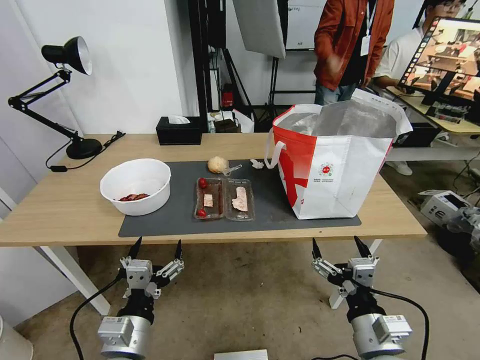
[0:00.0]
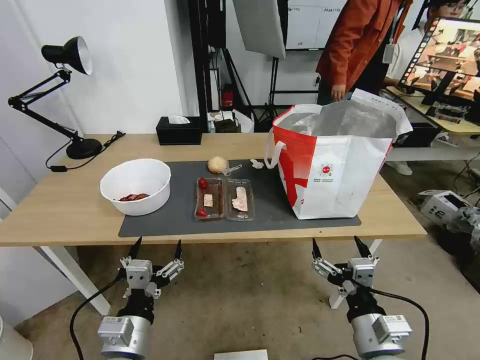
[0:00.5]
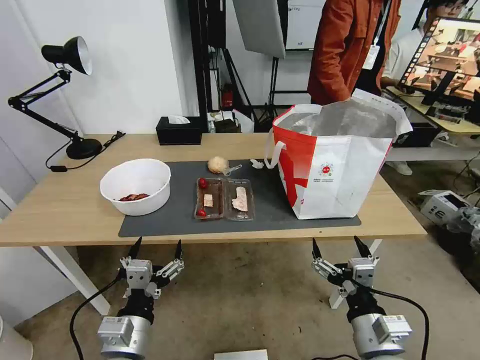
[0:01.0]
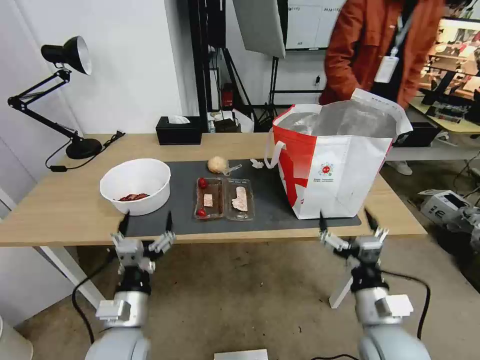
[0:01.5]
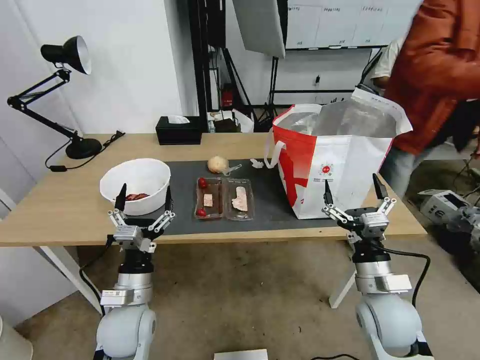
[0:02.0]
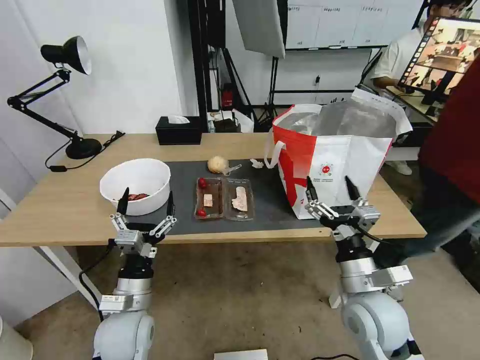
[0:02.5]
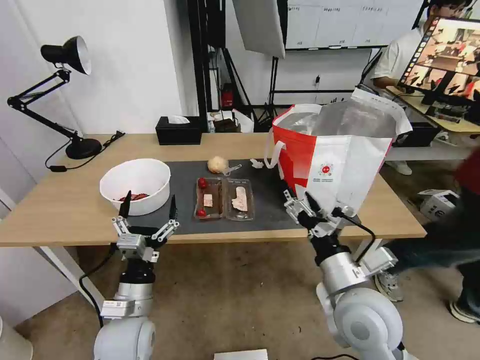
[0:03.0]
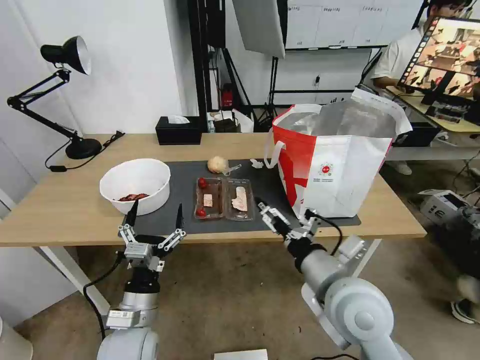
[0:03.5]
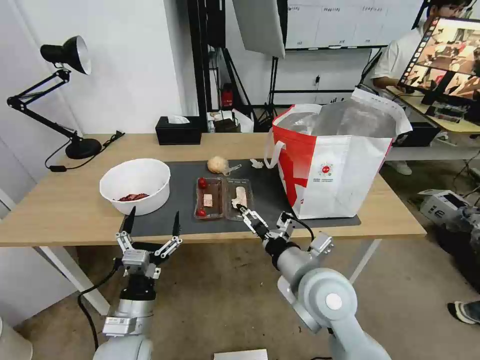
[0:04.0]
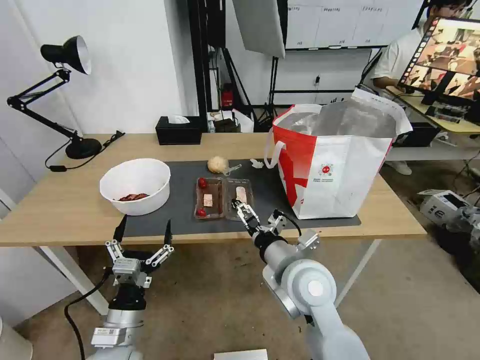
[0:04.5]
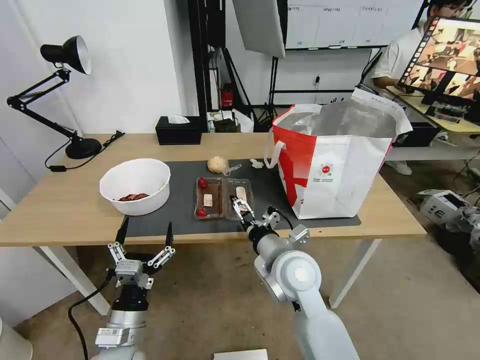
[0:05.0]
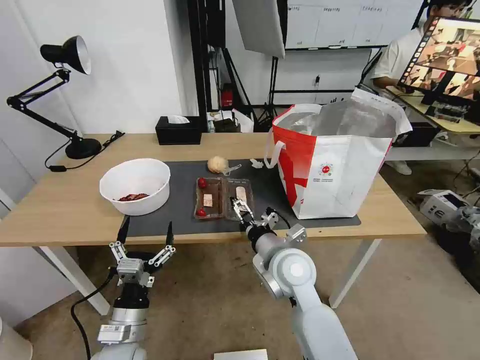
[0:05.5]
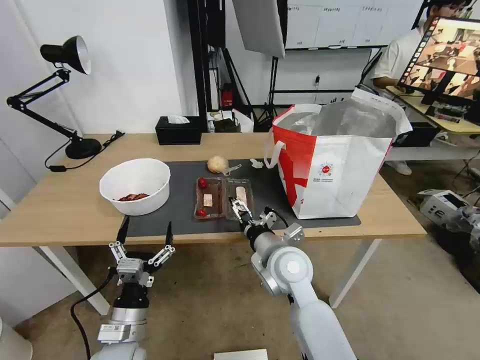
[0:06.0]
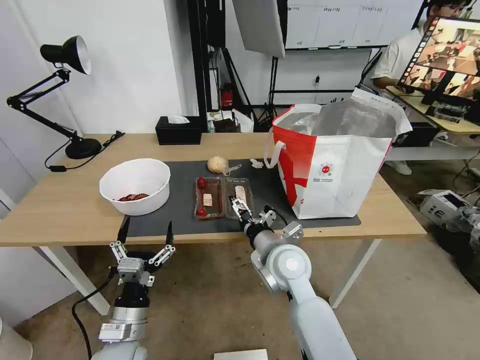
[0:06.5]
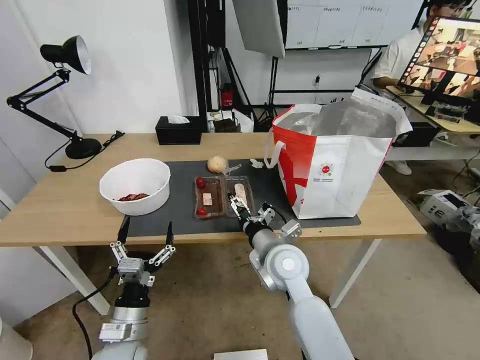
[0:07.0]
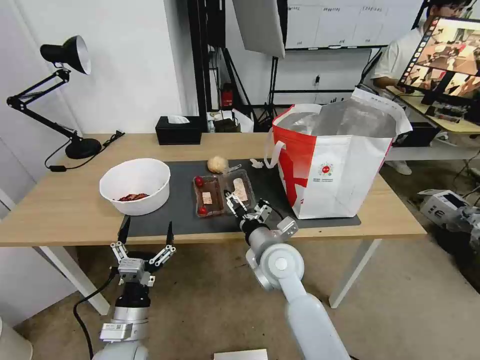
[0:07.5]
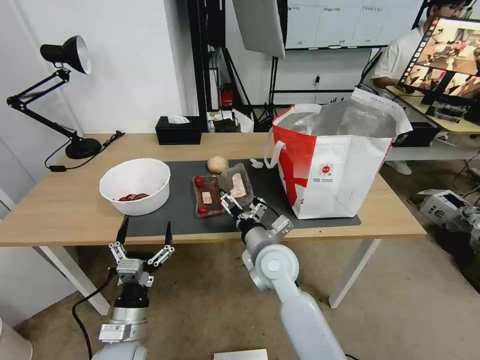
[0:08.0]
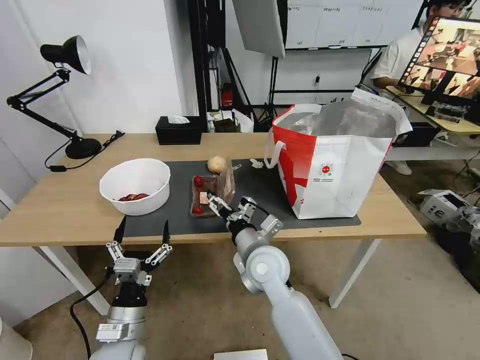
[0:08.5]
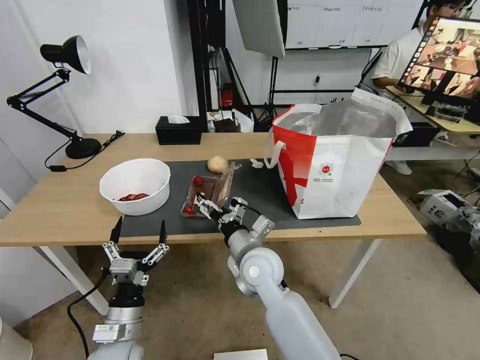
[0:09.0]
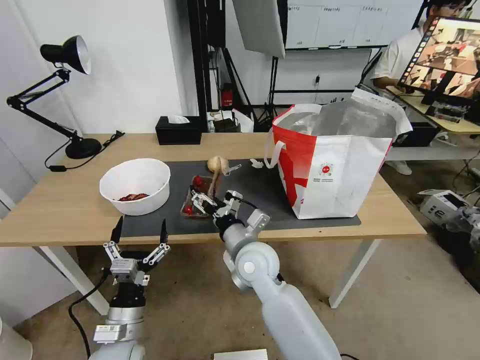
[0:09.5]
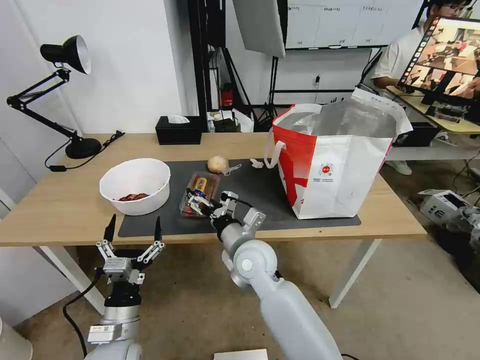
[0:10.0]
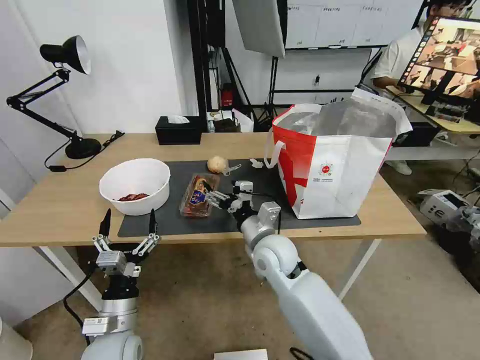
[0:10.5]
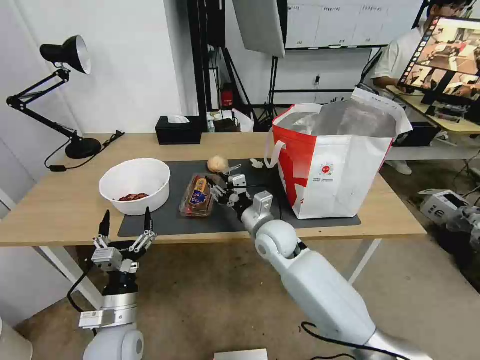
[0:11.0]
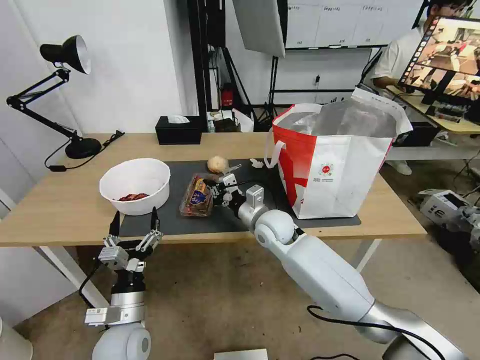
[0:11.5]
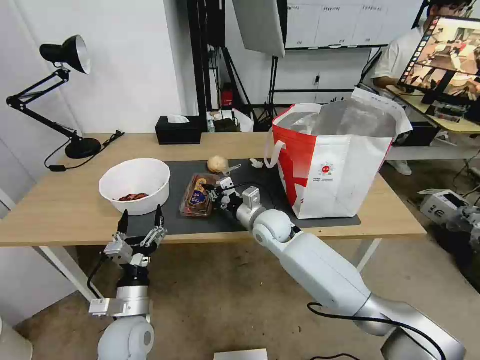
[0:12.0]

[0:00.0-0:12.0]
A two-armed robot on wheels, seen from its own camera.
Task of the whole recording: Pick up the trash from the table and place it into the takeout bag.
0:02.0 to 0:04.0: The right gripper heads to the left and upward, covering about 15 cm. The left gripper shifts by roughly 5 cm.
0:04.0 to 0:06.0: The right gripper heads forward, covering approximately 5 cm.
0:06.0 to 0:08.0: The grippers stay close to where they were, moving slightly.
0:08.0 to 0:10.0: The grippers make only small movements.
0:10.0 to 0:12.0: The right gripper heads forward and to the right, covering about 10 cm, and closes up.

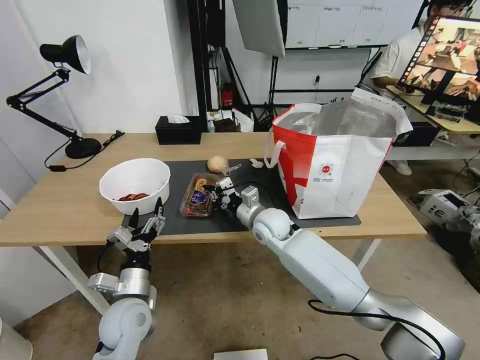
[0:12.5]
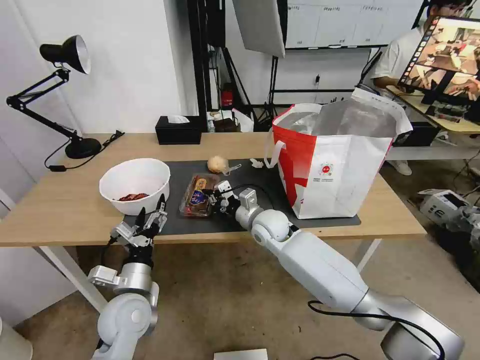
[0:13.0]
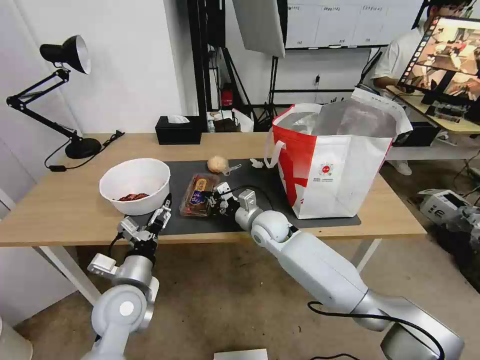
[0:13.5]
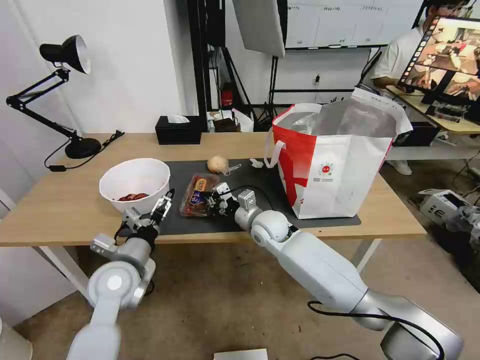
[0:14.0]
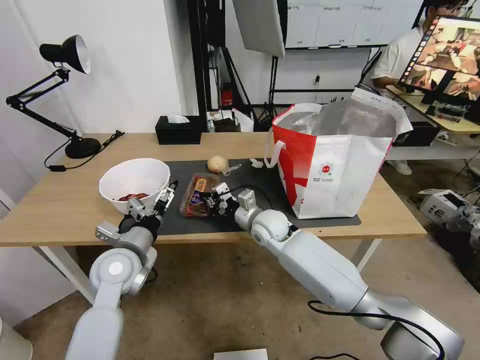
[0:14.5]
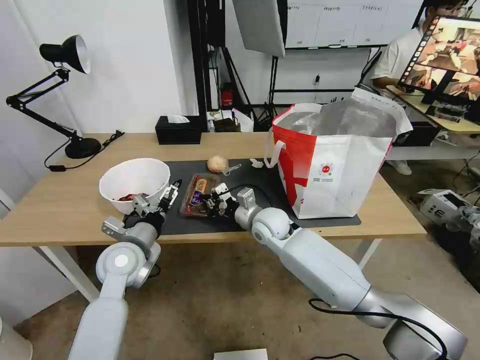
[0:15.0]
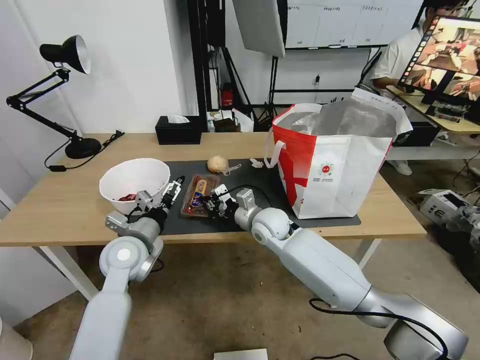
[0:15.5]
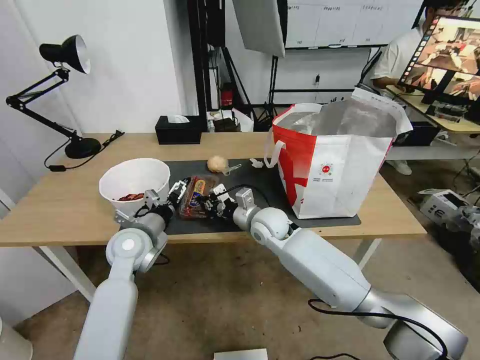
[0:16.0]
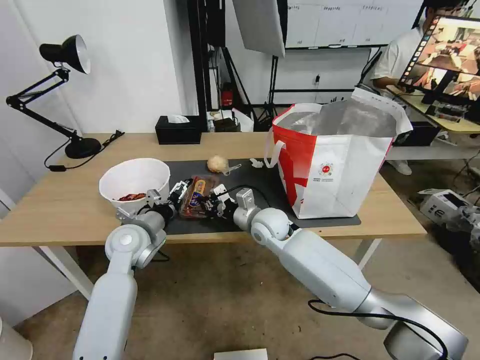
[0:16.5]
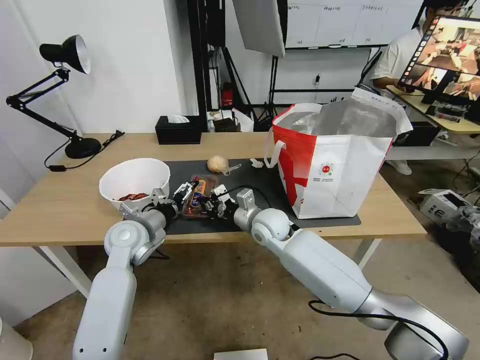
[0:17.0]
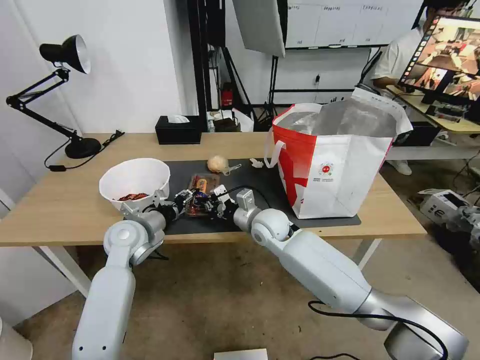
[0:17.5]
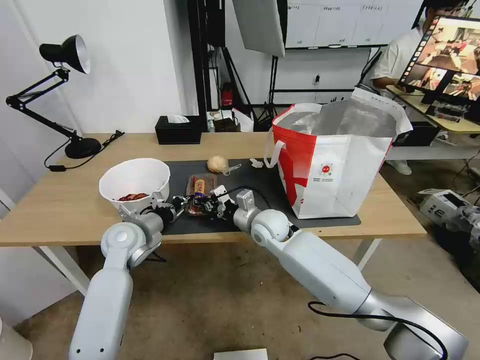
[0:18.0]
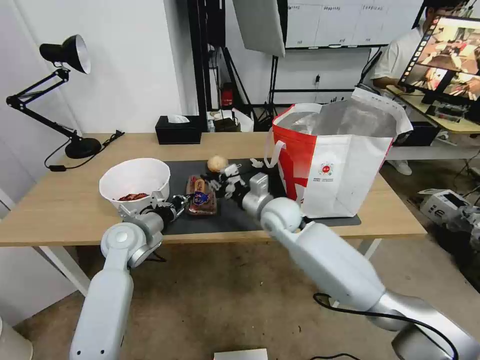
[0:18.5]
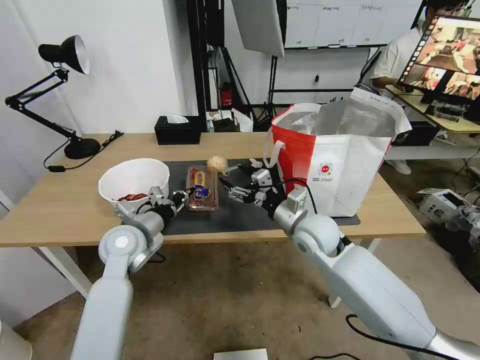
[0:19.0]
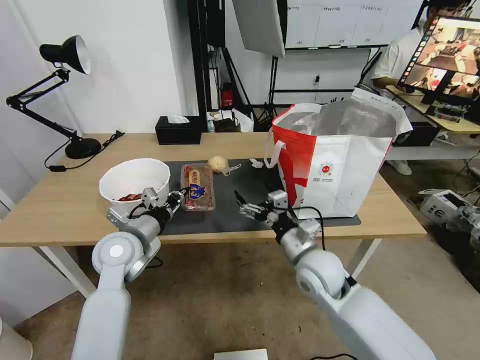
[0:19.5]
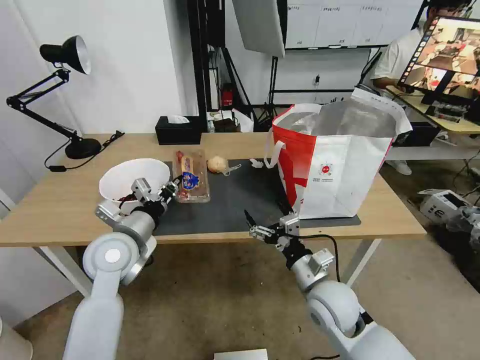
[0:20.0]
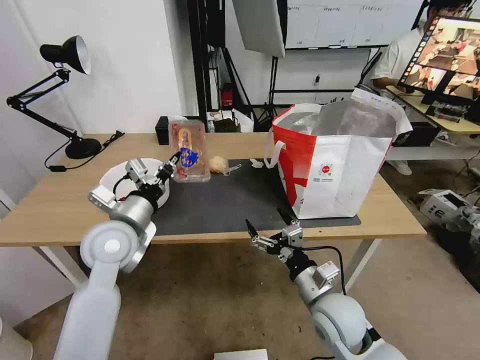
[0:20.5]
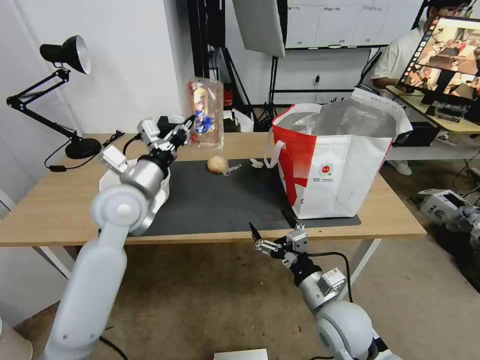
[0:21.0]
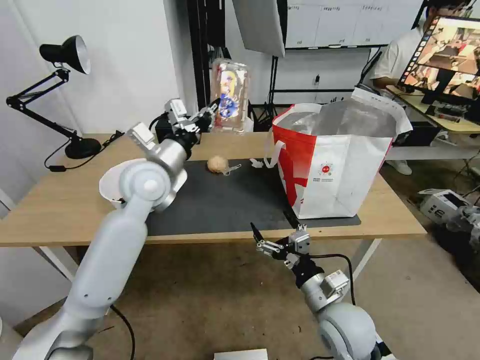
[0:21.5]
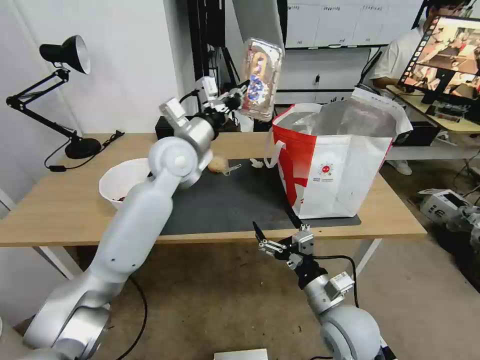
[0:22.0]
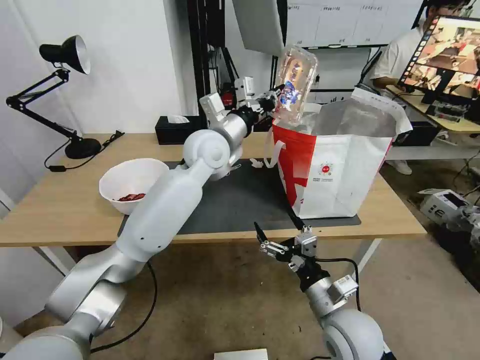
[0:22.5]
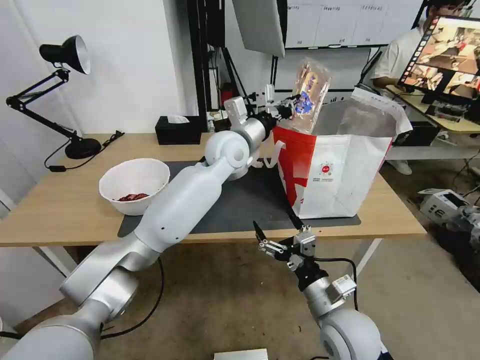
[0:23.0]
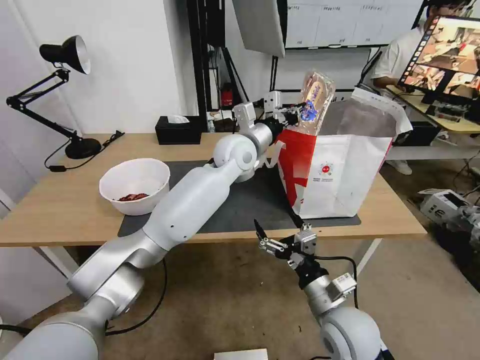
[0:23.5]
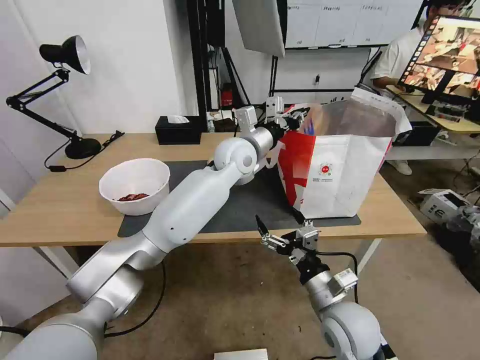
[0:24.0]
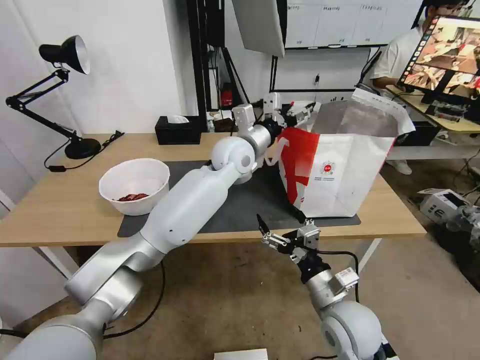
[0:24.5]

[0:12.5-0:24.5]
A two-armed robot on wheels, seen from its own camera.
Task of the whole recording: Pick up the trash from the table and place it into the takeout bag.
0:12.5 to 0:14.5: The left gripper is displaced upward and forward by some 10 cm.
0:14.5 to 0:16.5: The left gripper heads forward, covering roughly 5 cm.
0:16.5 to 0:18.5: The right gripper moves approximately 5 cm; the left gripper closes.
0:18.5 to 0:20.5: The right gripper goes approximately 25 cm backward and to the right, and opens up. The left gripper shifts some 10 cm upward and backward.
0:20.5 to 0:22.5: The left gripper heads to the right, forward and upward, covering roughly 25 cm.
0:22.5 to 0:24.5: The left gripper travels to the right by roughly 5 cm, and opens up.

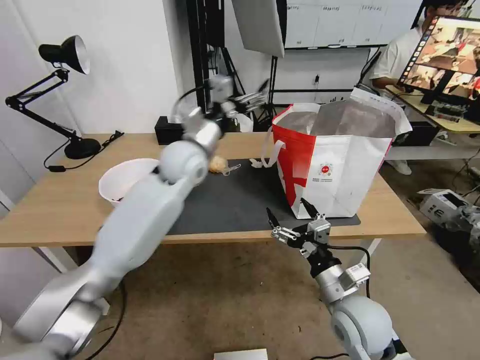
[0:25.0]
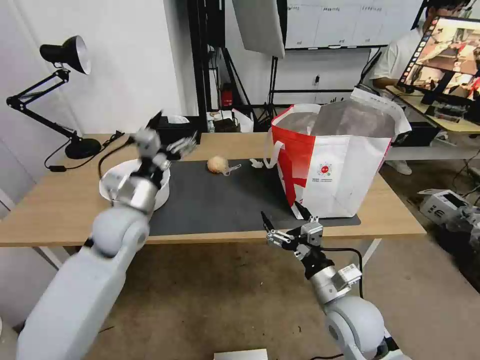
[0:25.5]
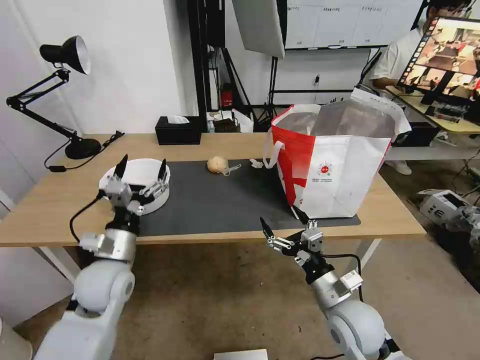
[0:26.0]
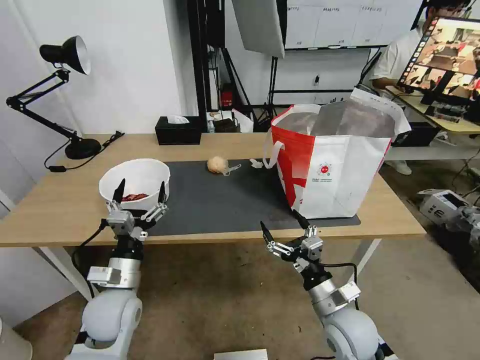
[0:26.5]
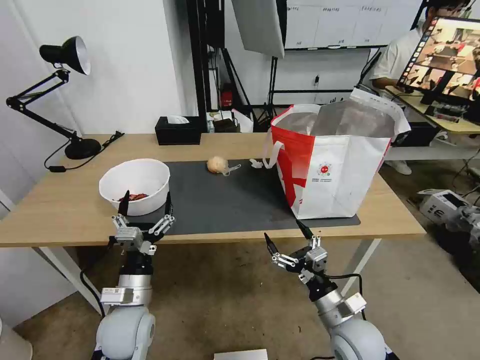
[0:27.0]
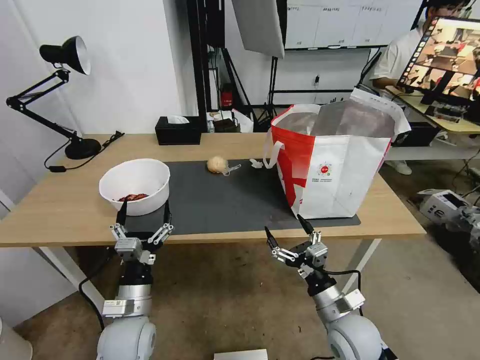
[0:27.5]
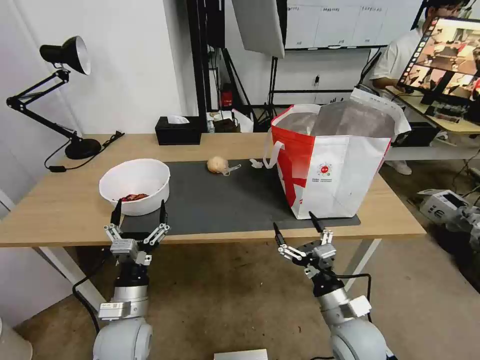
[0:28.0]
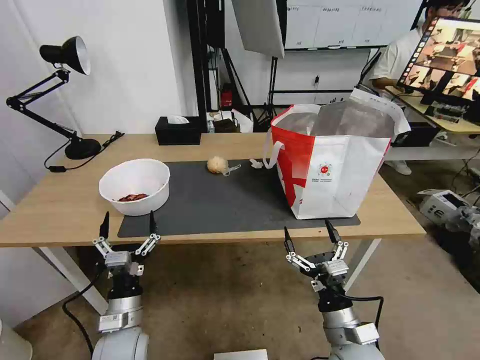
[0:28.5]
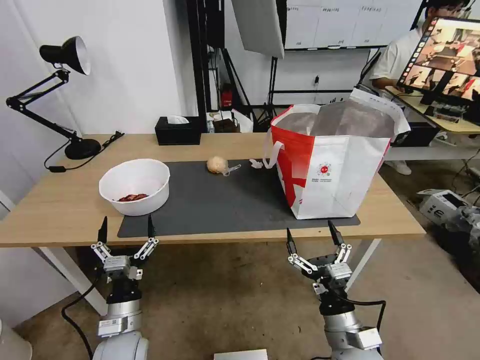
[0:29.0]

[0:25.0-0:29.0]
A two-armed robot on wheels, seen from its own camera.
Task of the whole recording: Pick up the trash from the table and place it into the takeout bag.
0:25.0 to 0:27.0: The left gripper travels backward and downward by about 35 cm; the right gripper goes roughly 5 cm downward.
0:27.0 to 0:29.0: The right gripper changes place by about 5 cm. Meanwhile the left gripper shifts by about 5 cm.
